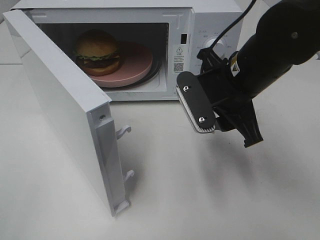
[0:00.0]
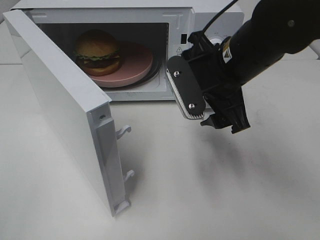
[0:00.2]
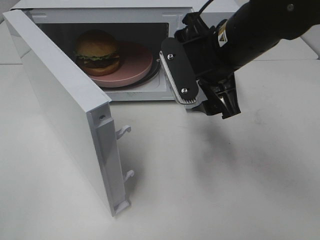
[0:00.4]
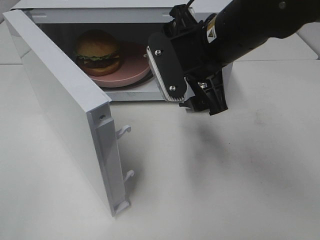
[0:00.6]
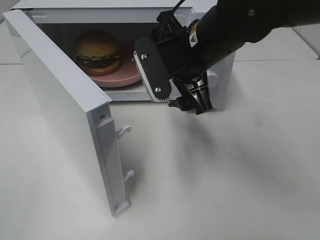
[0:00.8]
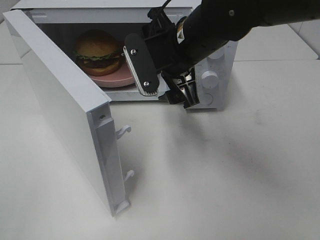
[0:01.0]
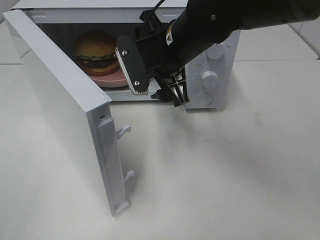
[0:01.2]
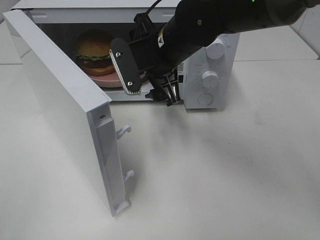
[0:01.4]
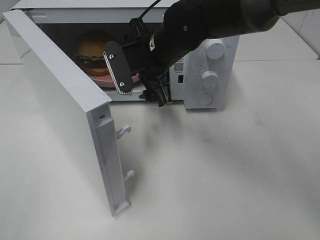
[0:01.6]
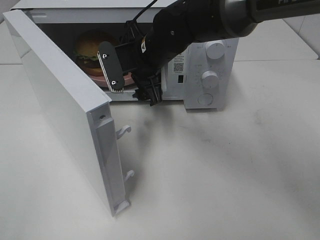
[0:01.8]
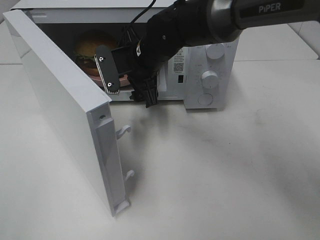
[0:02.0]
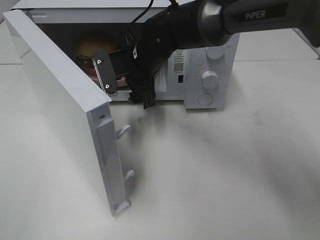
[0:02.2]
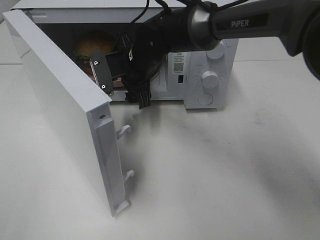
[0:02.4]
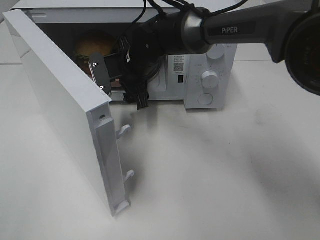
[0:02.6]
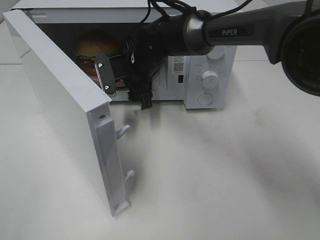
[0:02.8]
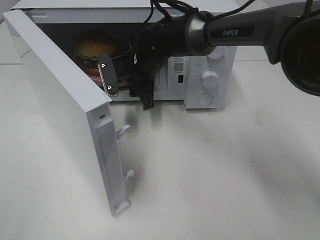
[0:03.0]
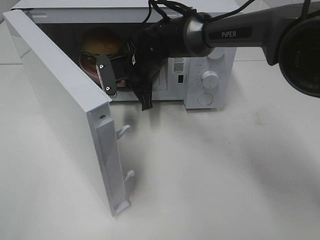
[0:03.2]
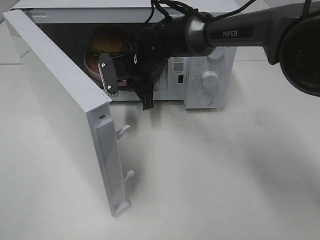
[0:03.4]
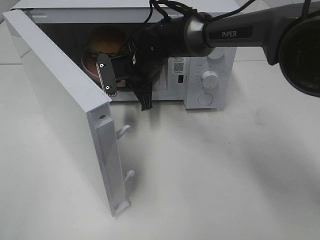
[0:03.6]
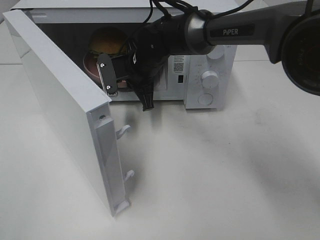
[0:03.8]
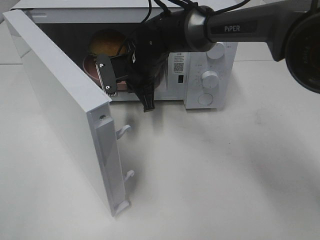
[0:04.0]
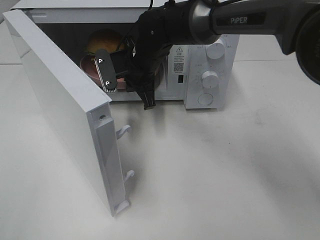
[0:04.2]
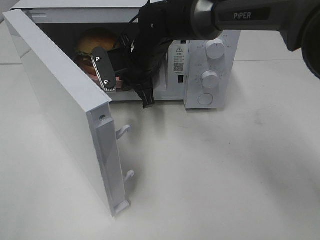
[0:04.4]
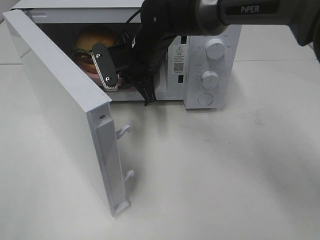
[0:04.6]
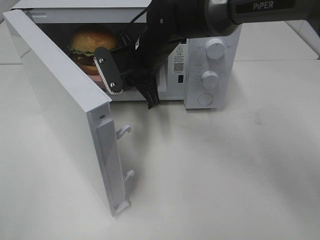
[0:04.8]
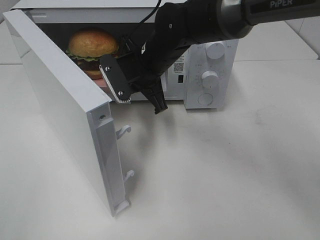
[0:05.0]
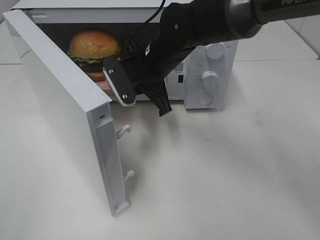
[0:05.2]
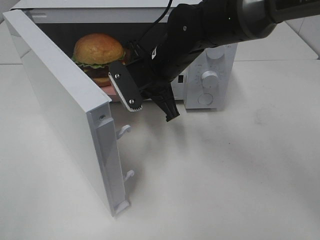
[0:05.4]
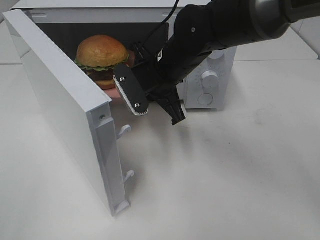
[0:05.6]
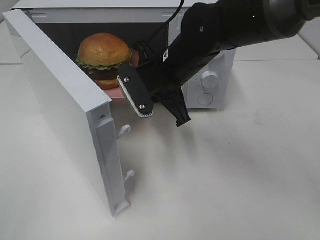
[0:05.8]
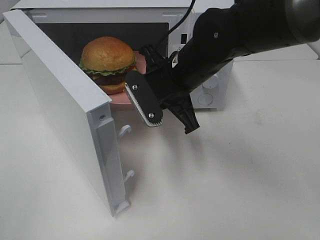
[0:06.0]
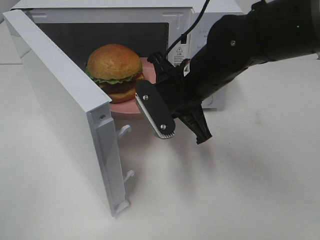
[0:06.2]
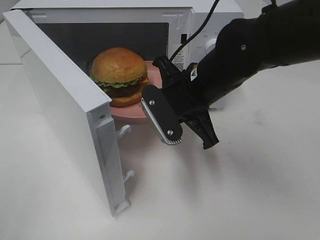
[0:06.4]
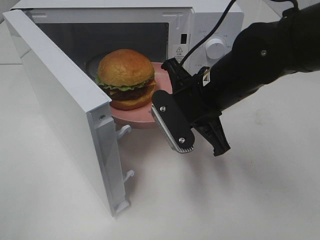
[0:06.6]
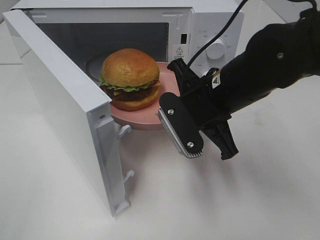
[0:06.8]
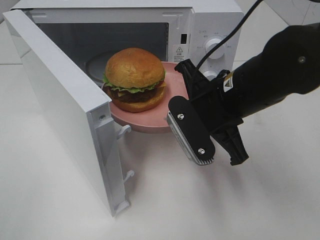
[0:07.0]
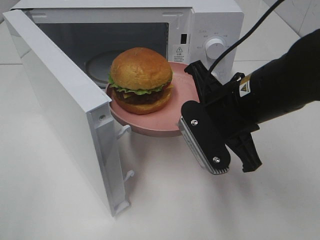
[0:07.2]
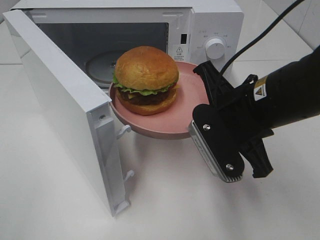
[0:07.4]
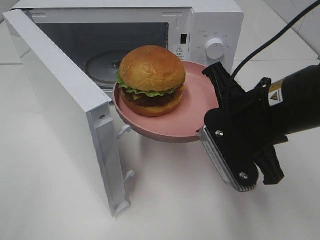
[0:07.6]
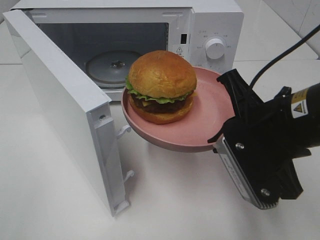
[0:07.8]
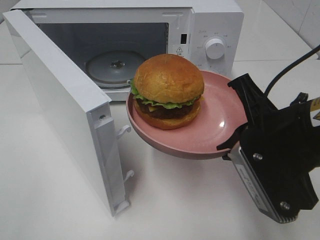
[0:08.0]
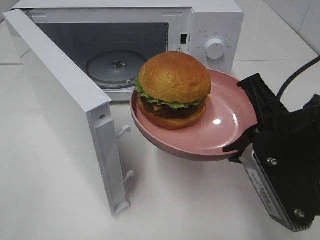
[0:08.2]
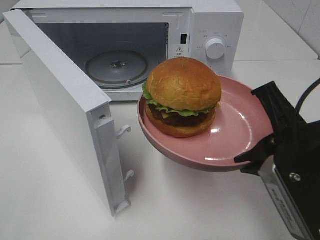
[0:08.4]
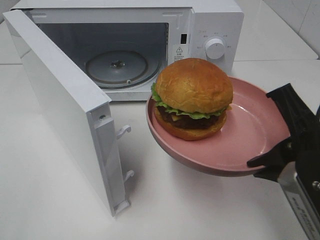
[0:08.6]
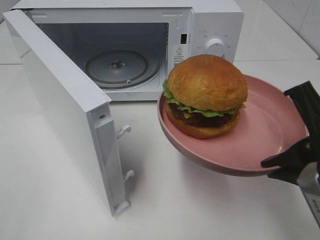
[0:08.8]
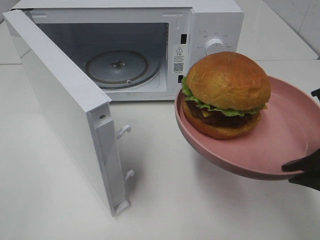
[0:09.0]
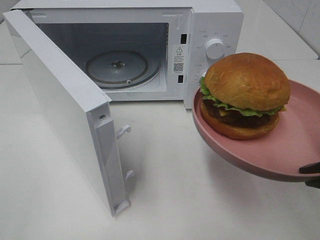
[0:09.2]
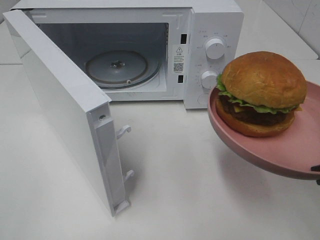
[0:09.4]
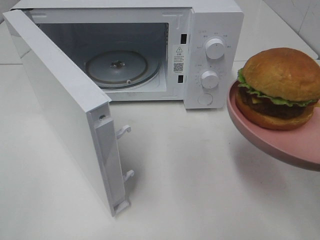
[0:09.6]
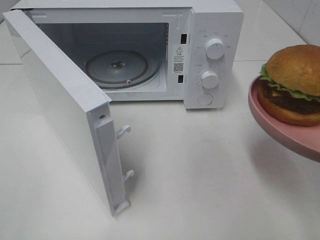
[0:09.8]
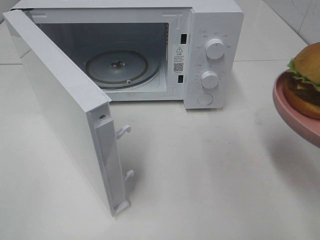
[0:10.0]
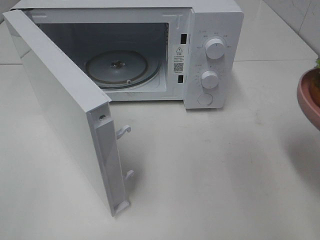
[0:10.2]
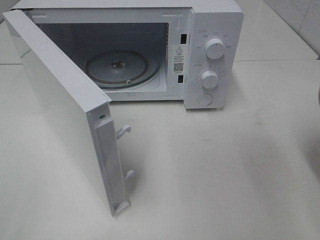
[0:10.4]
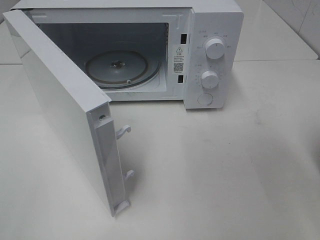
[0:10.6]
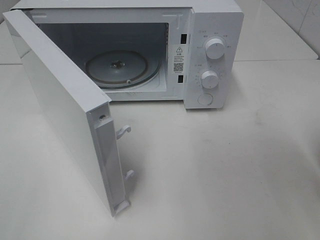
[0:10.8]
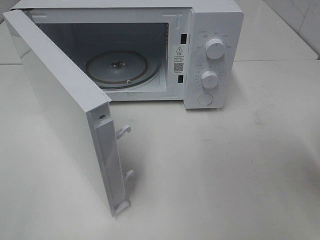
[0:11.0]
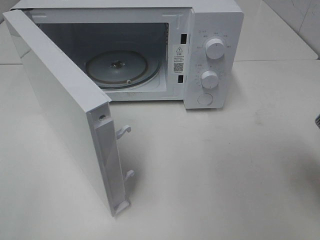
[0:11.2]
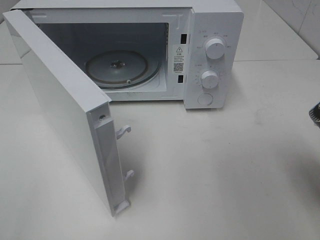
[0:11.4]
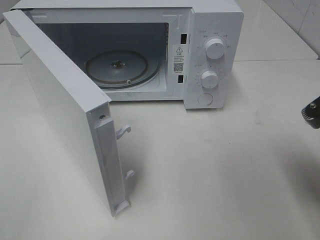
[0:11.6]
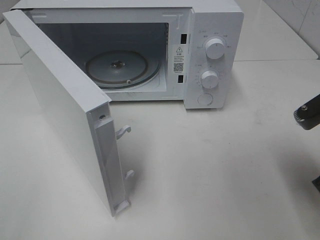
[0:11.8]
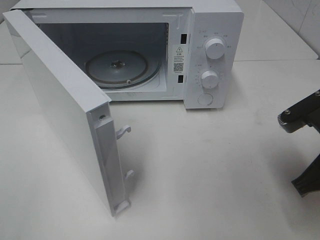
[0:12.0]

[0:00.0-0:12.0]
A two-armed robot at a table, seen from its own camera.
Task of the whole recording: Heat the burger.
Step, 0:00.0 to 0:03.4: Right hand: grab the plate with the hamburger.
0:00.0 to 0:01.6: The right gripper goes approximately 15 cm to the left and forward, and opens up.
0:01.6 to 0:03.0: The right gripper heads forward and downward, covering approximately 10 cm, and closes up.
0:03.0 to 0:04.4: The right gripper closes its fingers.
0:04.4 to 0:06.0: The right gripper heads backward and to the right, covering approximately 10 cm.
0:06.0 to 0:07.6: The right gripper heads backward and to the right, covering roughly 15 cm.
0:07.6 to 0:09.0: The right gripper moves backward and to the right, roughly 10 cm.
0:09.0 to 0:10.4: The right gripper travels to the right by approximately 5 cm.
0:10.4 to 0:12.0: The right gripper moves forward and downward, some 10 cm.

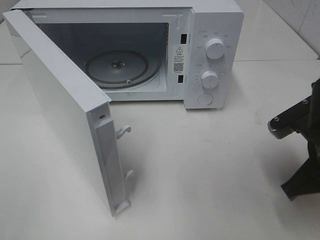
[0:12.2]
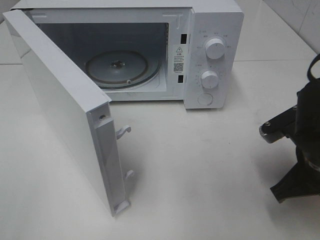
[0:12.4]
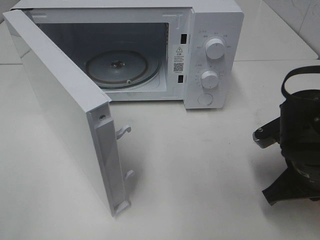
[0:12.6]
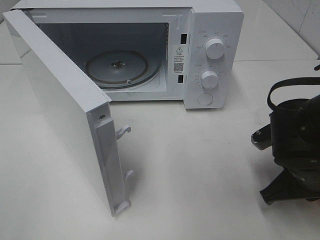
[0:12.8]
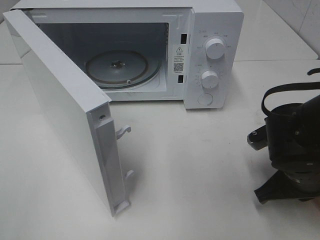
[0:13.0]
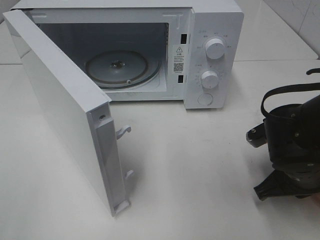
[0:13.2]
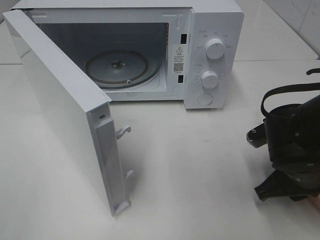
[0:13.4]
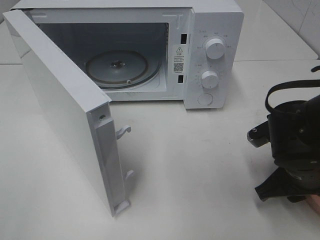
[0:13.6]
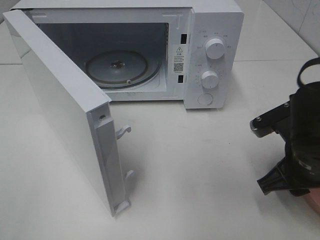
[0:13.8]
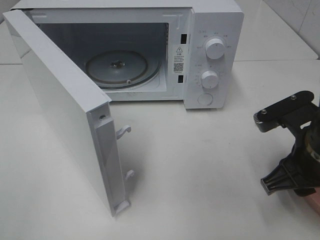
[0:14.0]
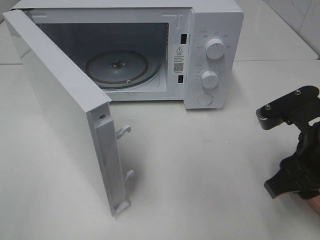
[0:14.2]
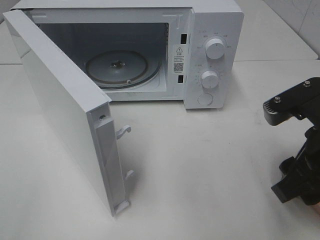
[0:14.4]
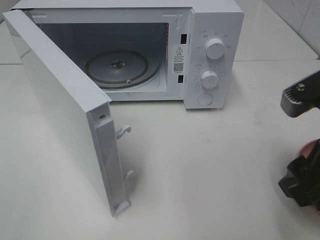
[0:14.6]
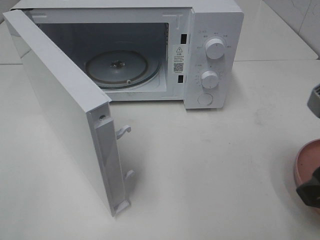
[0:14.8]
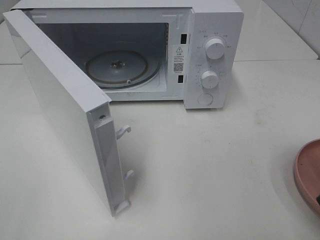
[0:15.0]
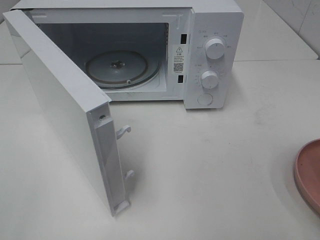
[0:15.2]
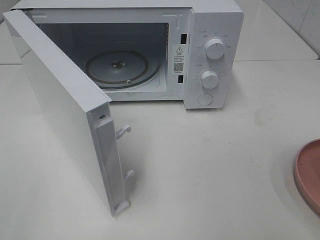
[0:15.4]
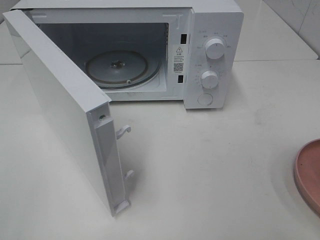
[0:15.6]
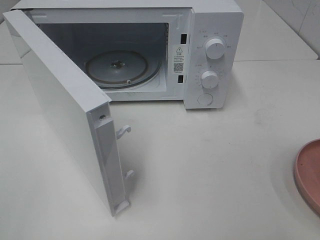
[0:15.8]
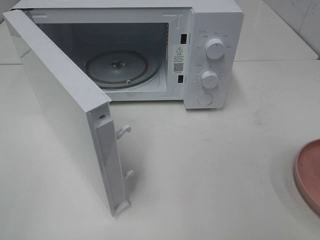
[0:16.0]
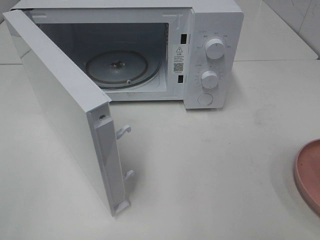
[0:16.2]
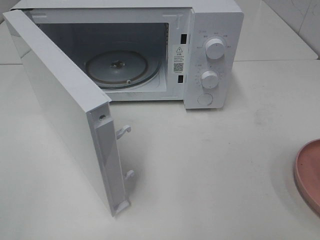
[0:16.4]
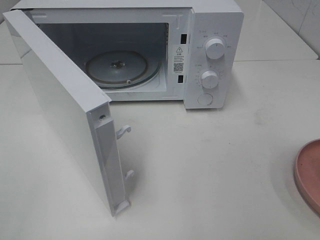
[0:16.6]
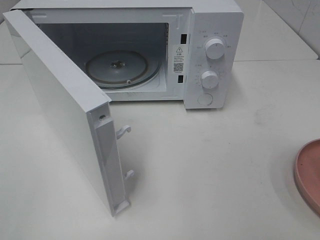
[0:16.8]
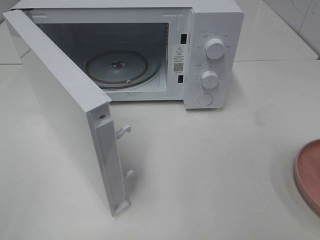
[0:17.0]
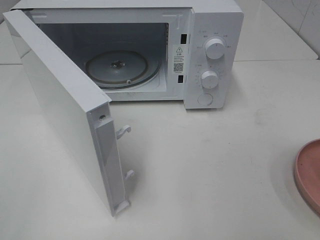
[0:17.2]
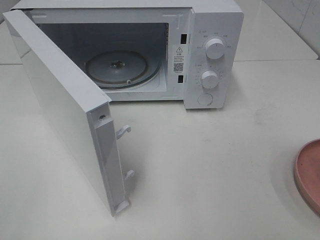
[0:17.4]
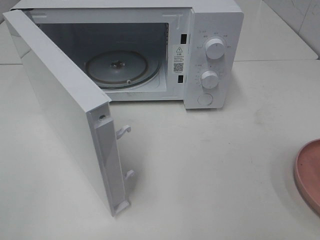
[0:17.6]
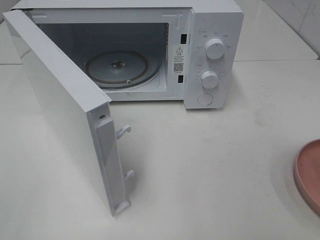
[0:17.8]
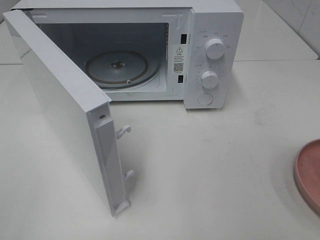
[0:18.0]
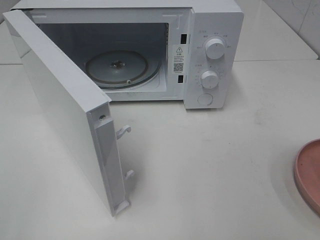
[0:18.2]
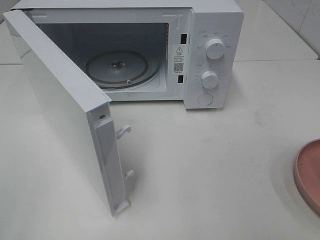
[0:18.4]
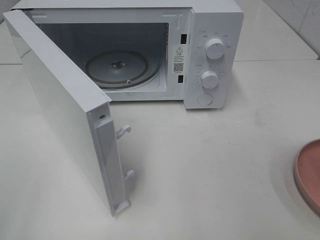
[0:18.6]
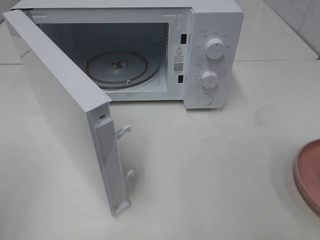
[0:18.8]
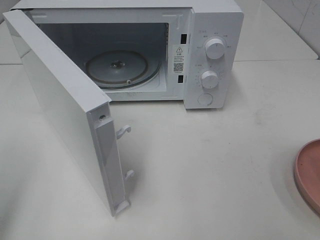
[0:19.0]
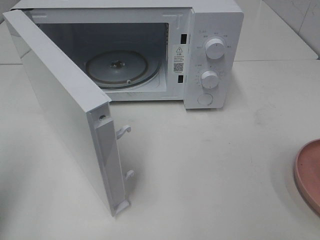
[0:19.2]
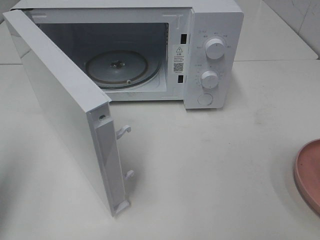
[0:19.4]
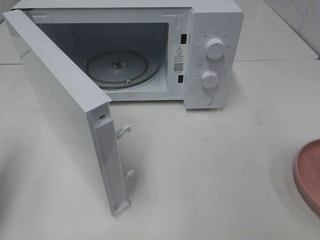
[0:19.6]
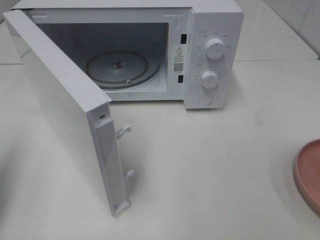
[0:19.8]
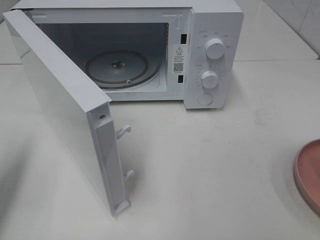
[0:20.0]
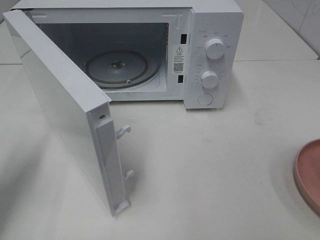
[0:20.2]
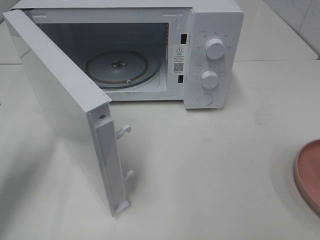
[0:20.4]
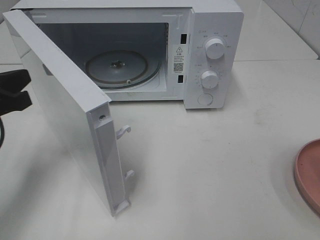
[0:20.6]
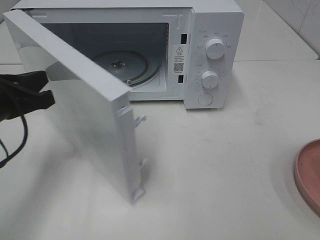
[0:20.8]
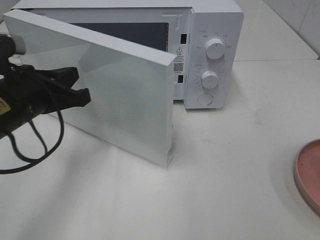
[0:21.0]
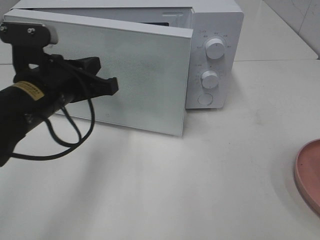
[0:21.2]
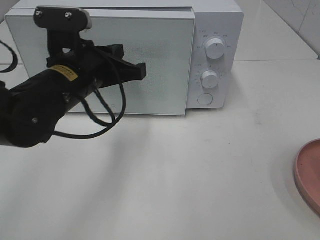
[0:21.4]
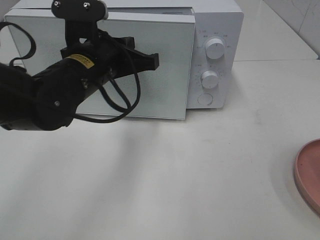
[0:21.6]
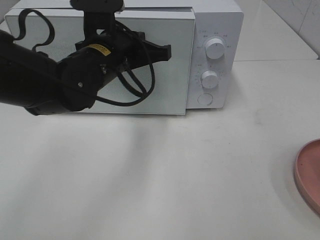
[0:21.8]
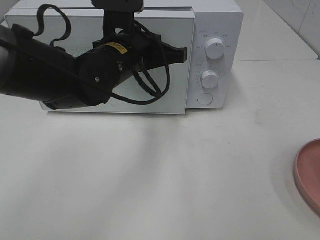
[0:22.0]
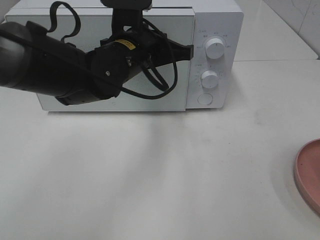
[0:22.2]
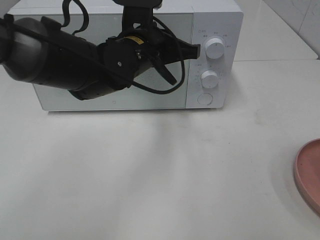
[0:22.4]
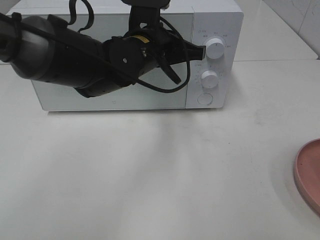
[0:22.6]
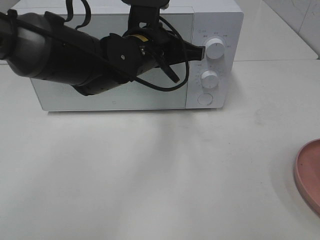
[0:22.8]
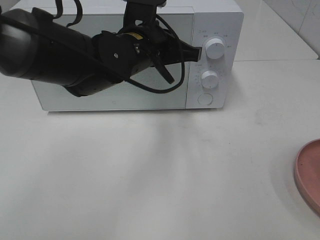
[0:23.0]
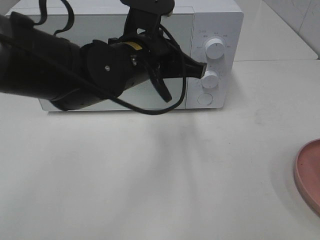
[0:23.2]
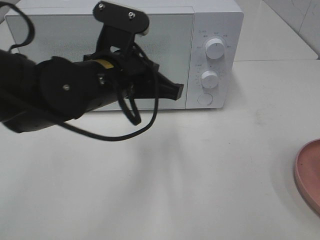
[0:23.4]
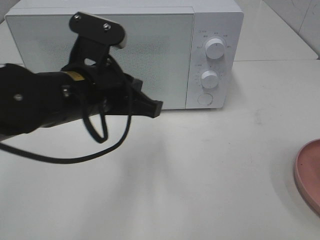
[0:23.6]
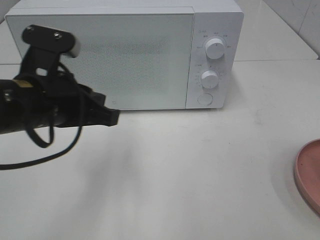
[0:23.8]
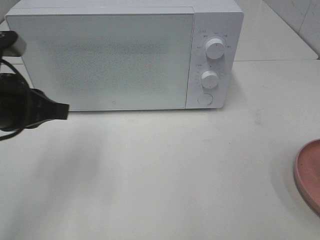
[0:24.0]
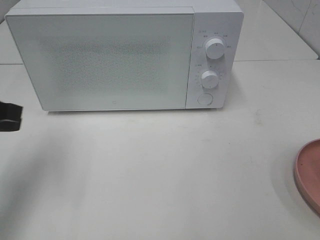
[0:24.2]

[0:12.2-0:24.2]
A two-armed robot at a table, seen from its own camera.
Task of the whole recording: Heat the burger.
Step, 0:13.8 to 0:23.0: Left hand: close the microwave door.
0:12.2 to 0:13.8: The right gripper opens.
0:13.8 to 0:15.2: The right gripper is displaced upward and backward by roughly 20 cm.
0:16.6 to 0:18.2: Both grippers stay about where they are.
0:18.2 to 0:19.8: The left gripper is displaced forward by some 15 cm, and closes.
0:19.8 to 0:21.2: The left gripper heads to the right and forward, covering roughly 20 cm.
0:21.2 to 0:22.6: The left gripper moves to the right and forward, roughly 15 cm.
0:22.6 to 0:24.2: The left gripper heads to the left and backward, covering approximately 25 cm.
